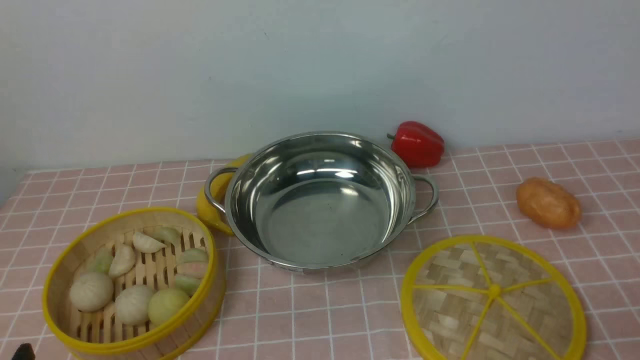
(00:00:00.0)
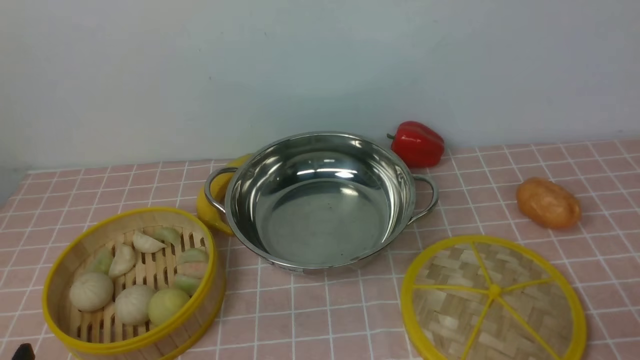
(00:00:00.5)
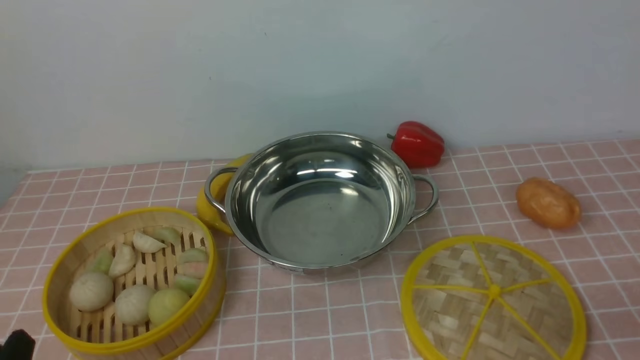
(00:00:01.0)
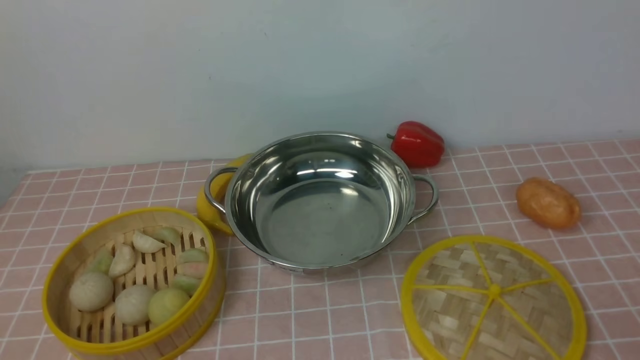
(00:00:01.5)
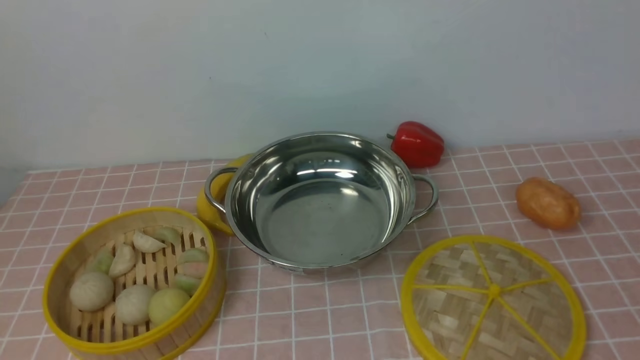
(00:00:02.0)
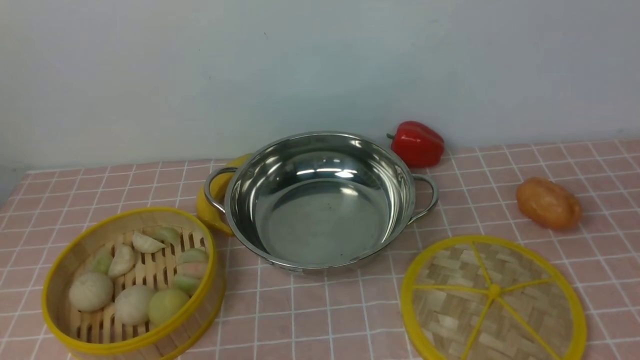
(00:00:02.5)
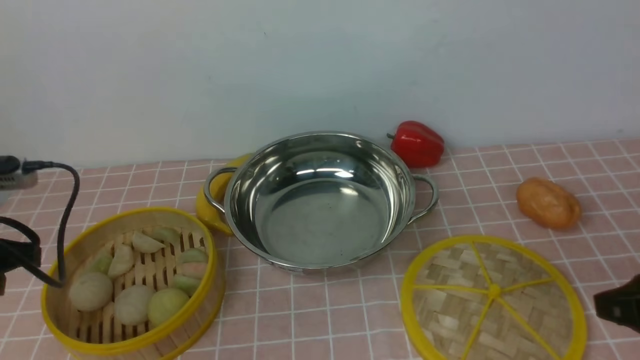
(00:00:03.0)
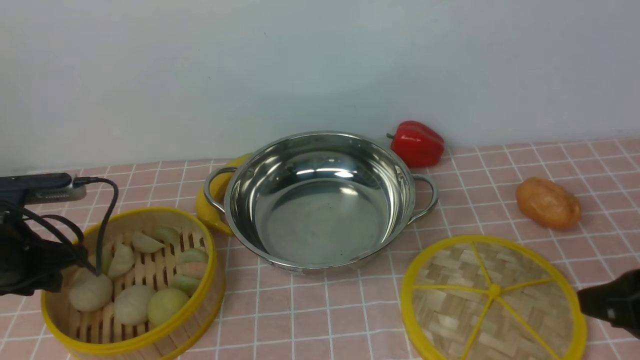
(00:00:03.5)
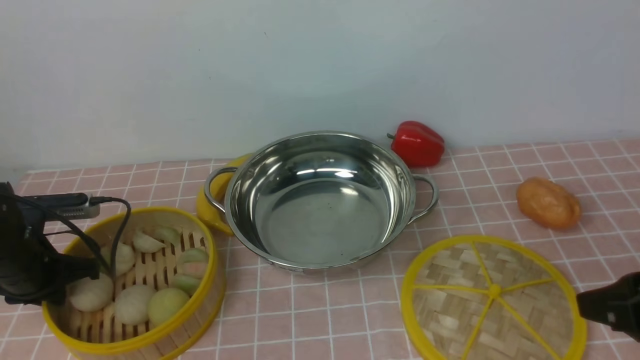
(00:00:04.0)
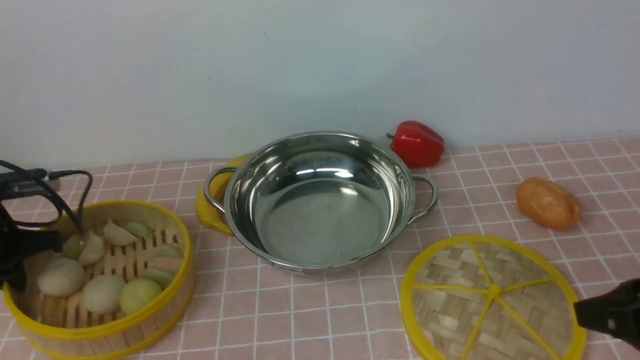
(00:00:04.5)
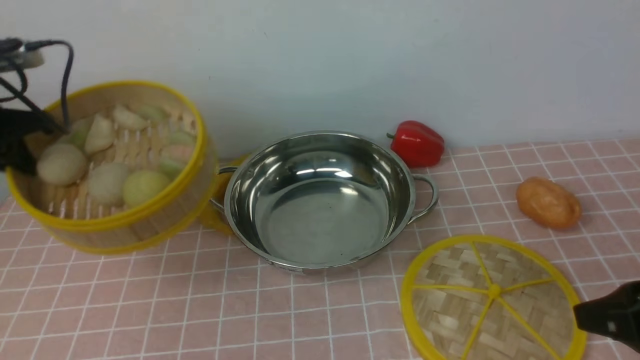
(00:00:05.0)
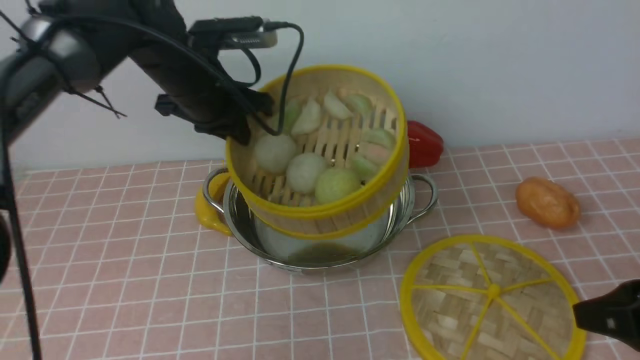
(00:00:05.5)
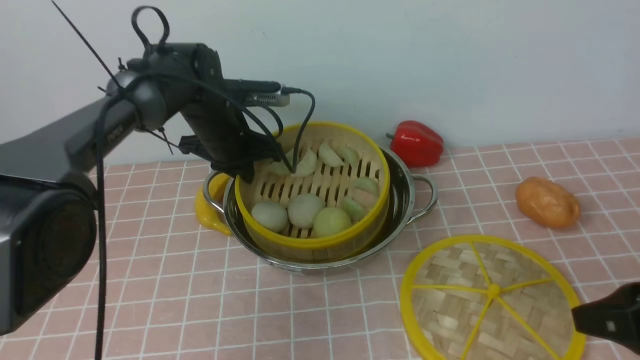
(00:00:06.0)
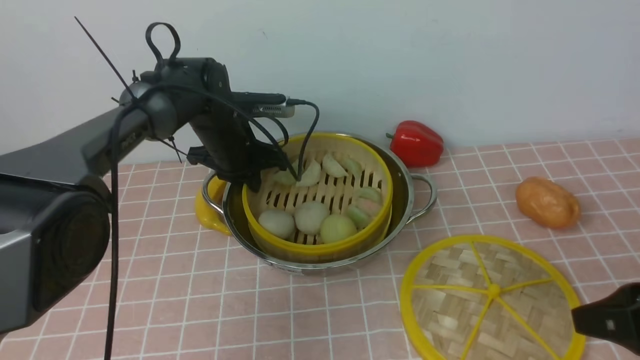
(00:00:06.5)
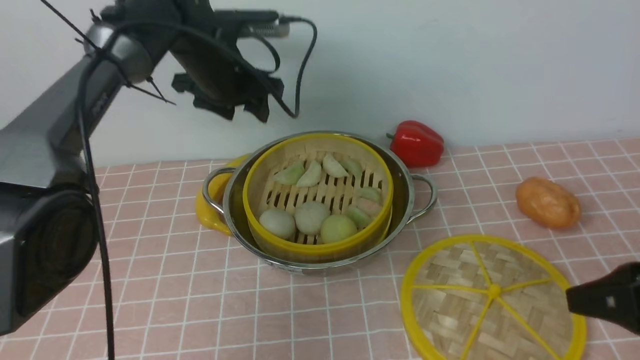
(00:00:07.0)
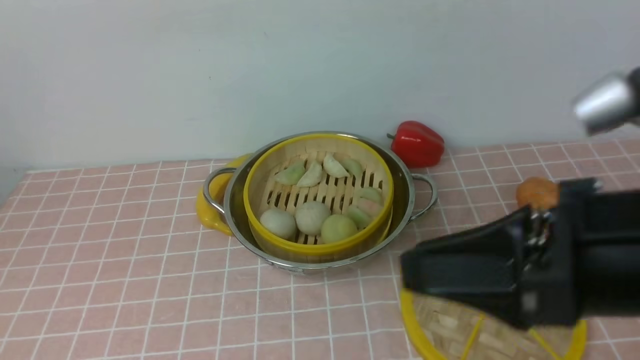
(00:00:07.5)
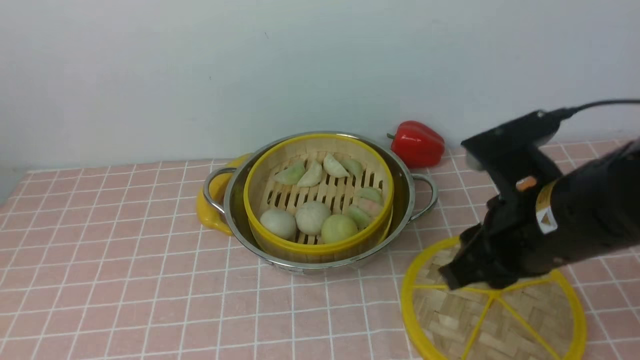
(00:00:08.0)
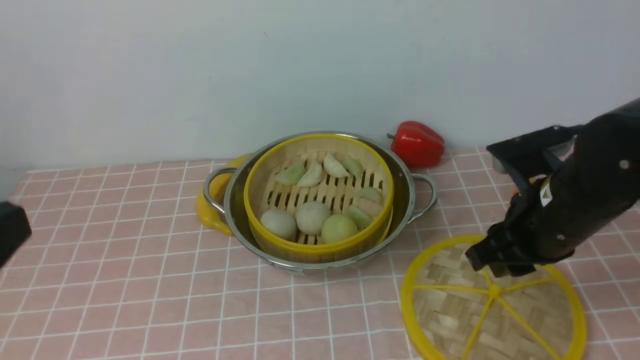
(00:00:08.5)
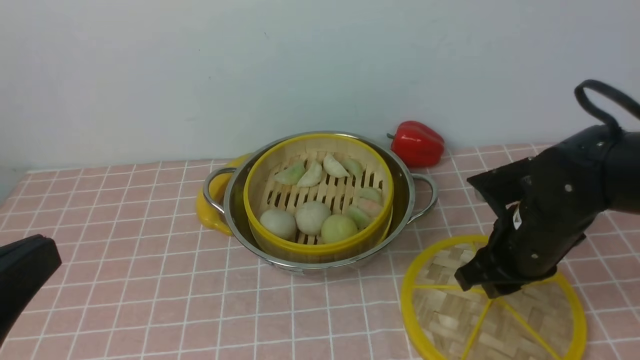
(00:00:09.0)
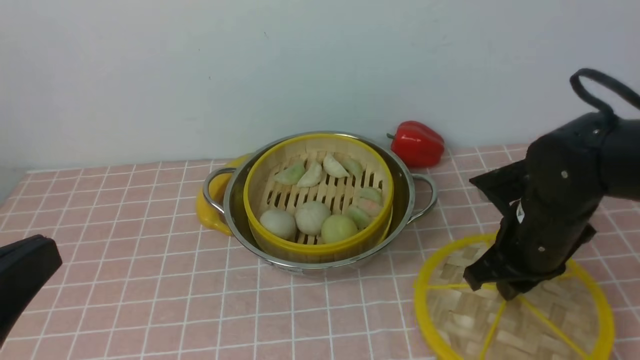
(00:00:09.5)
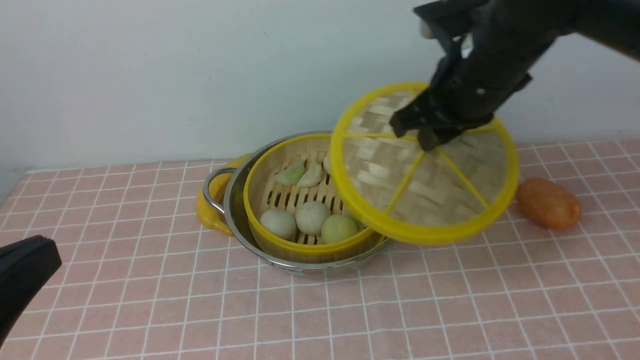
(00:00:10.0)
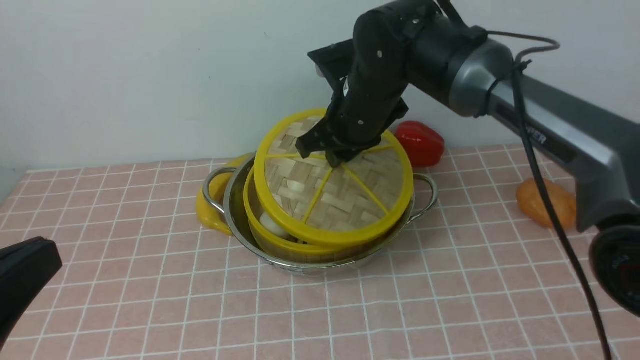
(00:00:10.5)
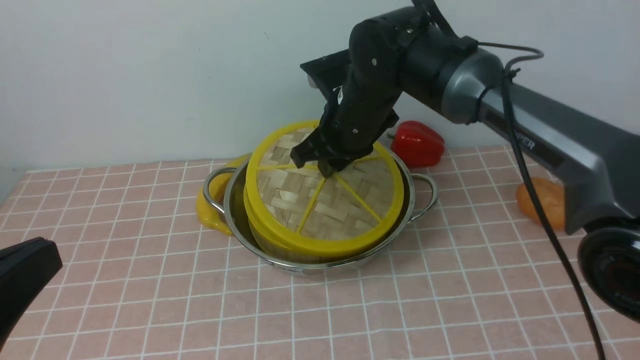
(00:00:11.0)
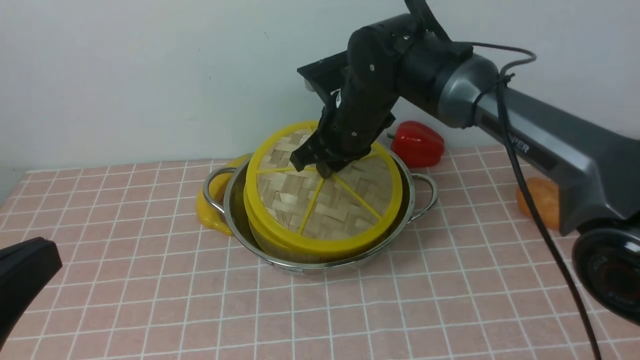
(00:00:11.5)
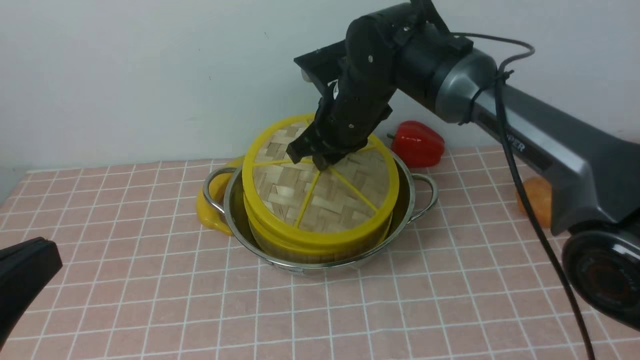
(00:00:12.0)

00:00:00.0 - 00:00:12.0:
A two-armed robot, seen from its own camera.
Task of the whole recording: place the steamer in the pot on the pink tablecloth, and put the lid on the steamer.
Step, 00:00:00.0 - 00:00:04.5: use the left arm to lift the steamer closest to it.
Step, 00:00:05.0 - 00:00:06.5: use the left arm to put the steamer into the iron steamer pot in the middle.
Step, 00:00:07.0 - 00:00:09.5: use the right arm to lift the lid of the steamer.
00:00:02.0 - 00:00:04.0: The left gripper moves forward and downward, about 35 cm, while the right gripper goes some 15 cm forward and to the left.
00:00:04.0 - 00:00:06.0: The left gripper moves to the right and forward, roughly 25 cm.
00:00:06.0 - 00:00:08.0: The left gripper moves upward and backward, about 50 cm, and opens, then closes once more. Meanwhile the right gripper is displaced to the left by approximately 15 cm.
00:00:08.0 - 00:00:10.0: The right gripper travels forward by some 15 cm; the left gripper moves downward and backward, approximately 25 cm.
00:00:10.0 - 00:00:12.0: The right gripper travels to the left, forward and downward by some 15 cm.

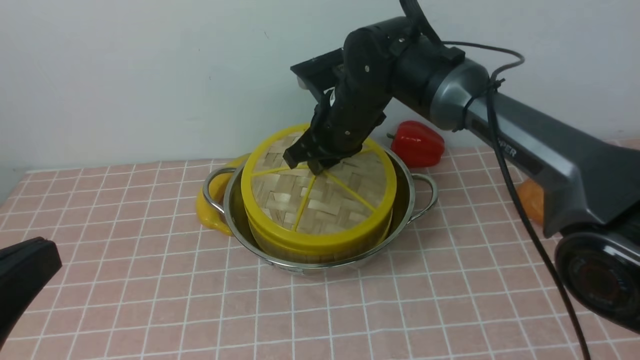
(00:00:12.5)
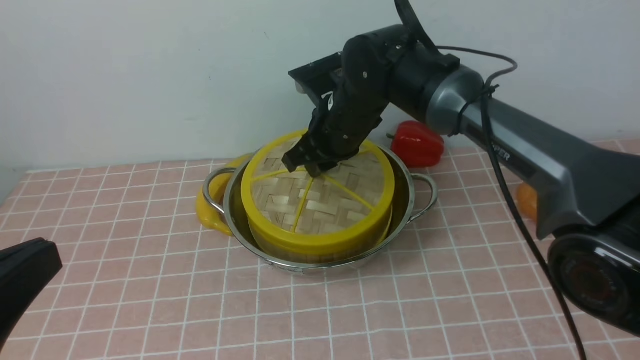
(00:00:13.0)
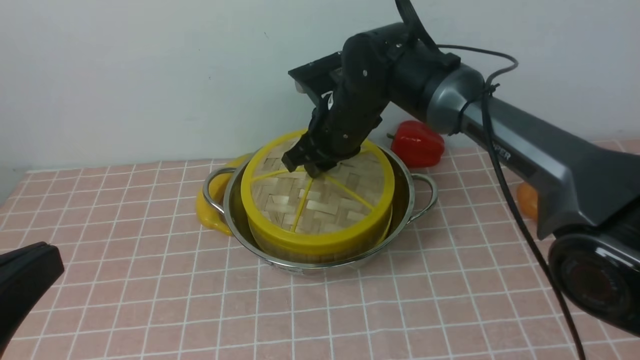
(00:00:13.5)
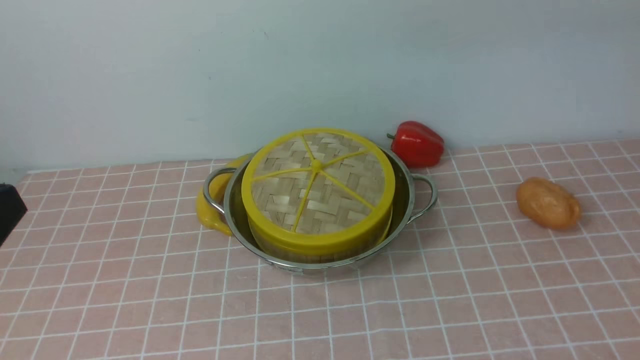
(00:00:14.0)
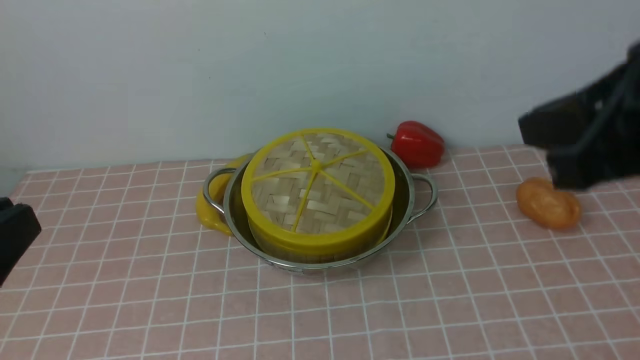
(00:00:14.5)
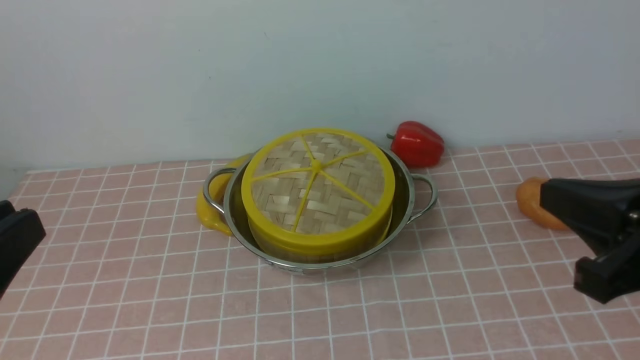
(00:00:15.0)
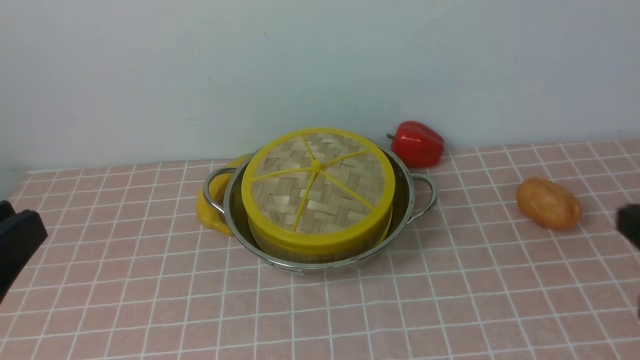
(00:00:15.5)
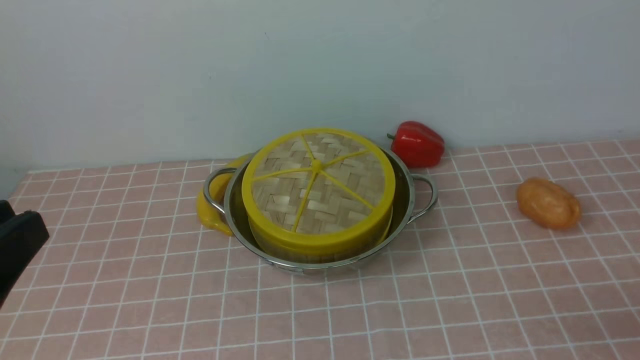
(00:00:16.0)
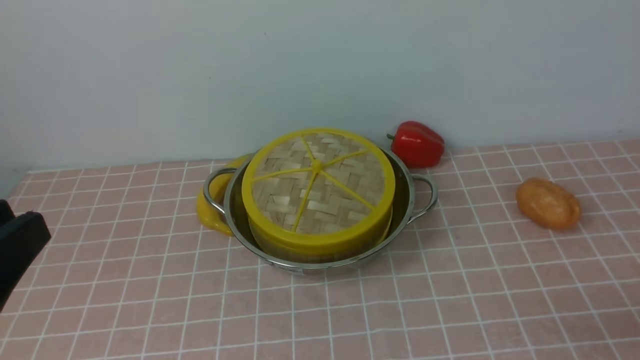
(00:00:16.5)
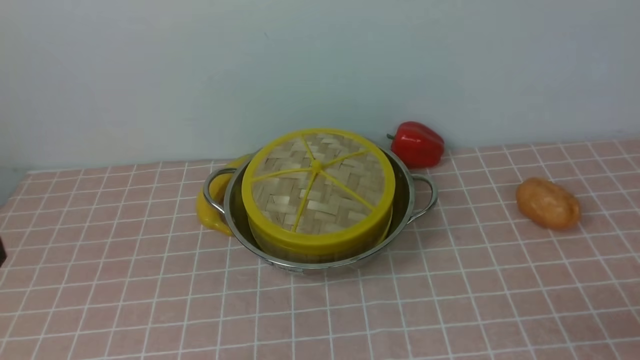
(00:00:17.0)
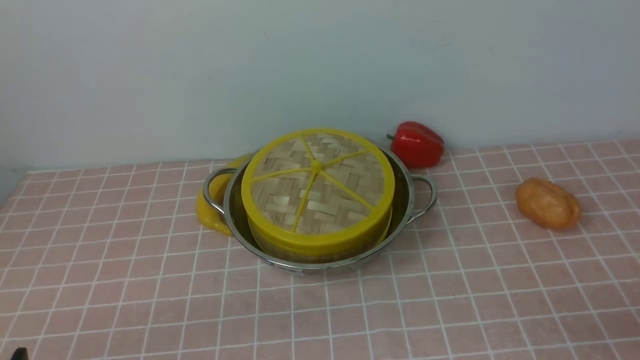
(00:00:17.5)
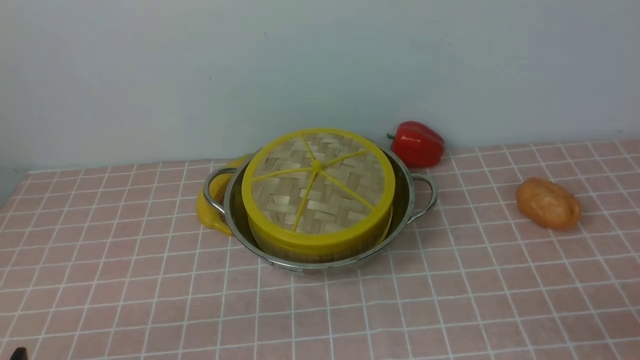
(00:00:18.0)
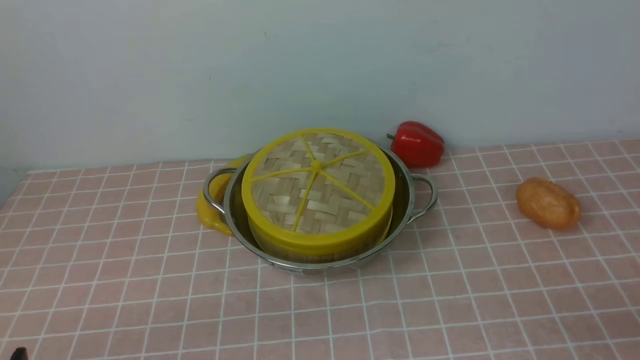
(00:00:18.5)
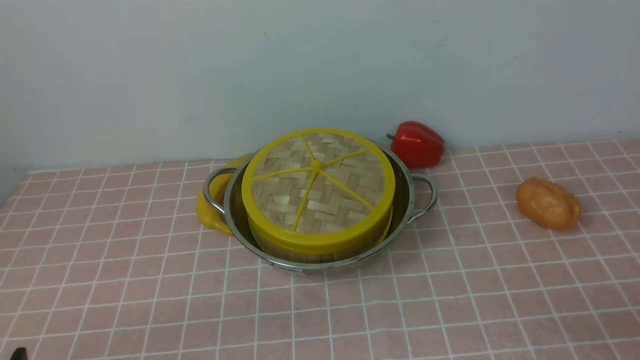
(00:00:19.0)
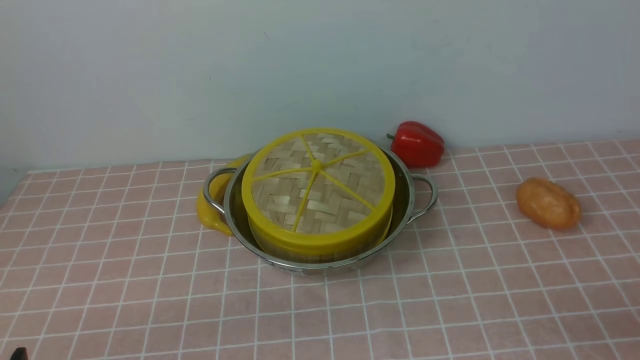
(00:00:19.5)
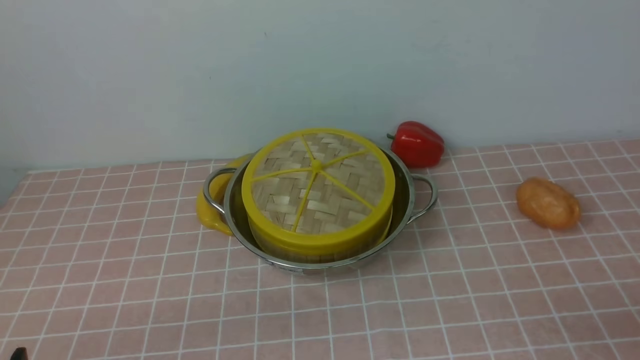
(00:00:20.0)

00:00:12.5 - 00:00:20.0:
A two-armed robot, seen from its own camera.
Task of the whole recording: place the steamer in the pot on the pink tablecloth, and put the lid on the steamer.
00:00:12.5 - 00:00:14.5: The right gripper heads backward, upward and to the right, covering some 35 cm, and opens, then closes again.
00:00:14.5 - 00:00:16.5: The right gripper moves downward, backward and to the right, about 30 cm, and closes, then reopens.
00:00:16.5 - 00:00:18.0: The left gripper is displaced downward by some 15 cm.
00:00:18.0 - 00:00:20.0: Both grippers stay put.
